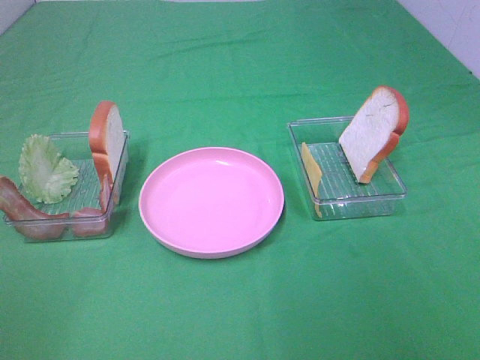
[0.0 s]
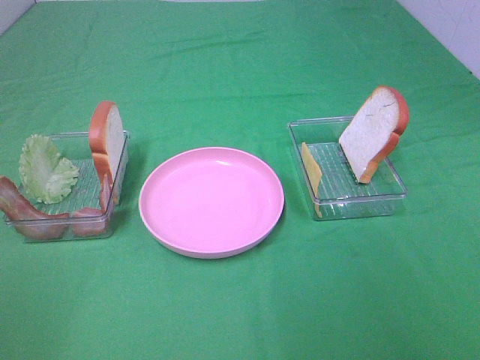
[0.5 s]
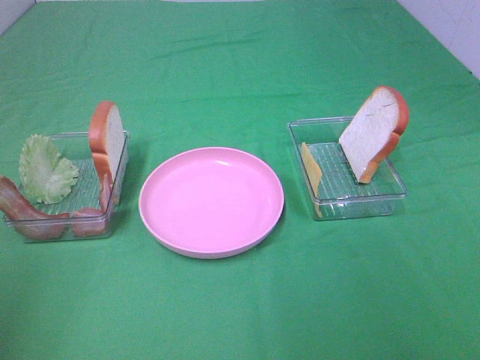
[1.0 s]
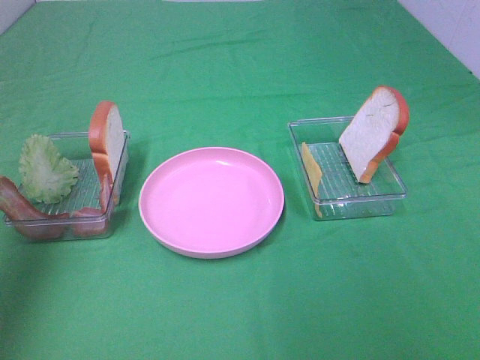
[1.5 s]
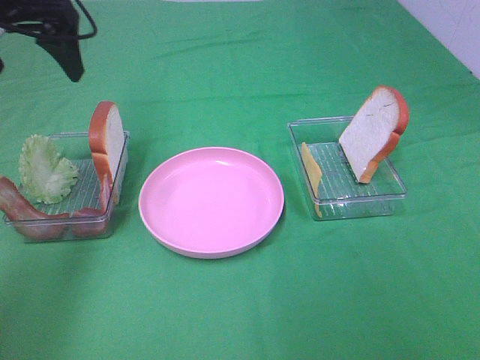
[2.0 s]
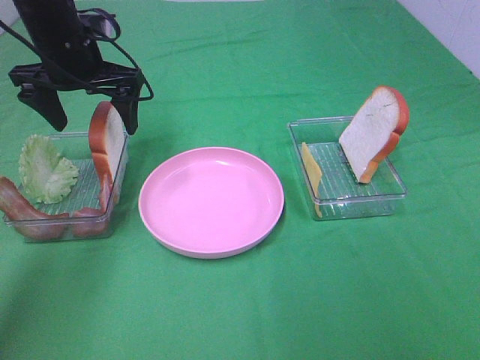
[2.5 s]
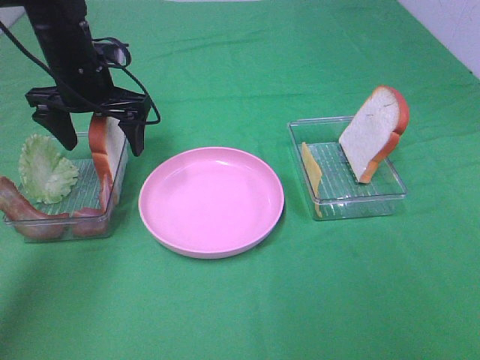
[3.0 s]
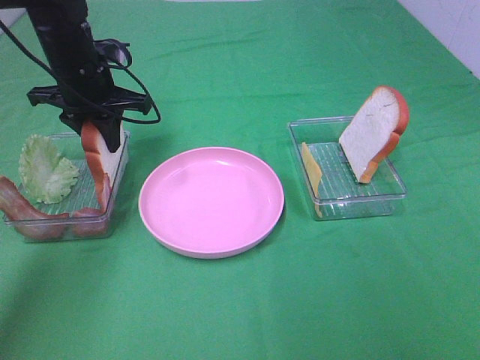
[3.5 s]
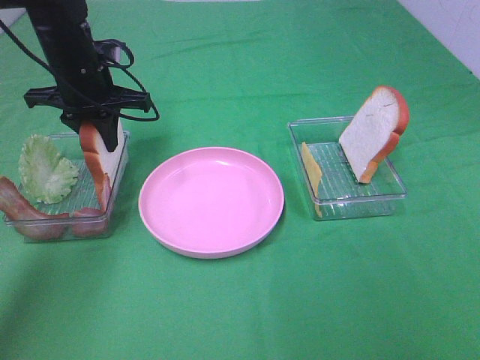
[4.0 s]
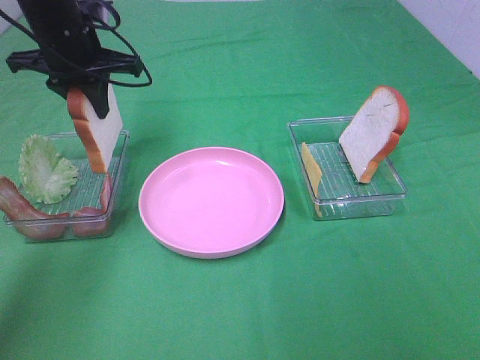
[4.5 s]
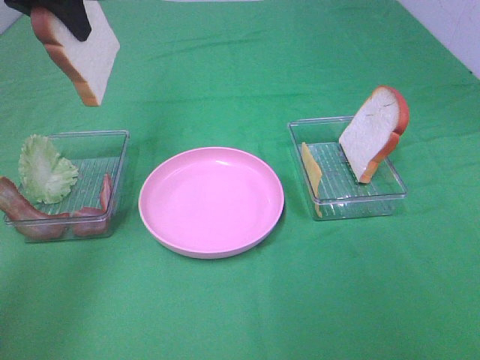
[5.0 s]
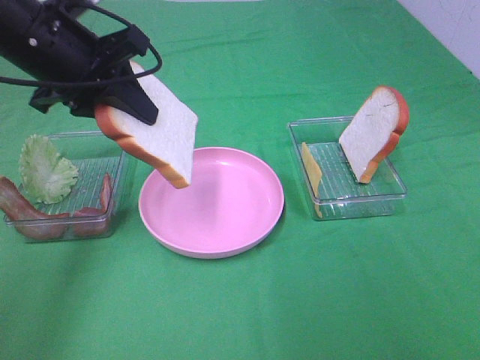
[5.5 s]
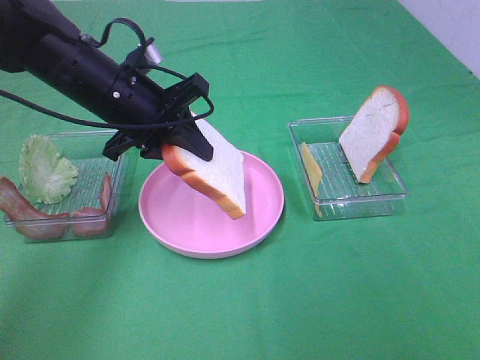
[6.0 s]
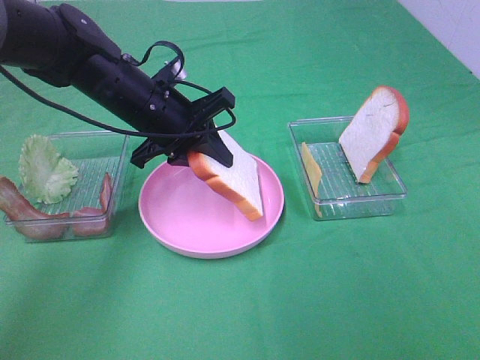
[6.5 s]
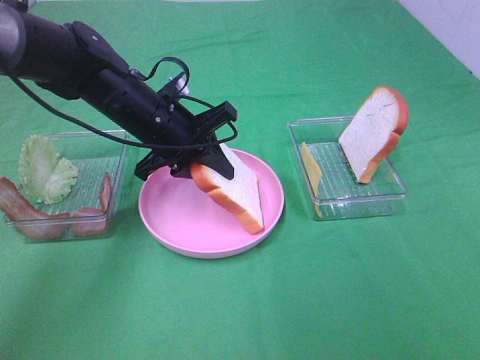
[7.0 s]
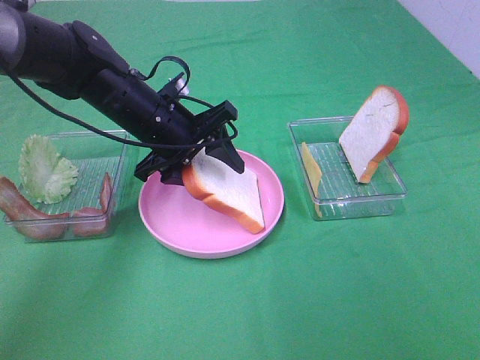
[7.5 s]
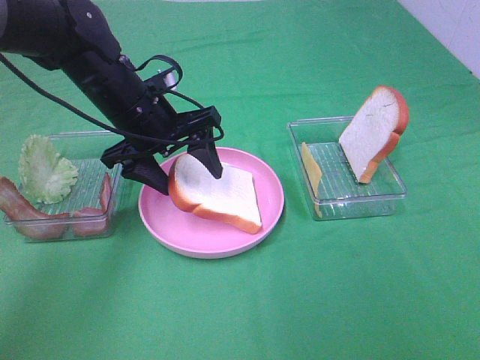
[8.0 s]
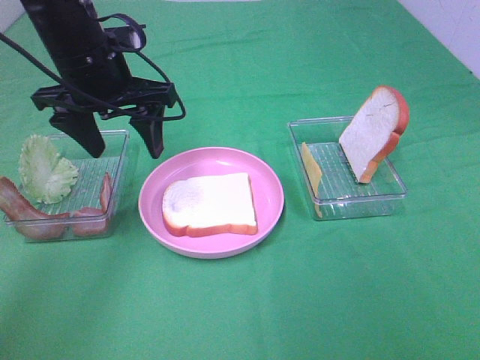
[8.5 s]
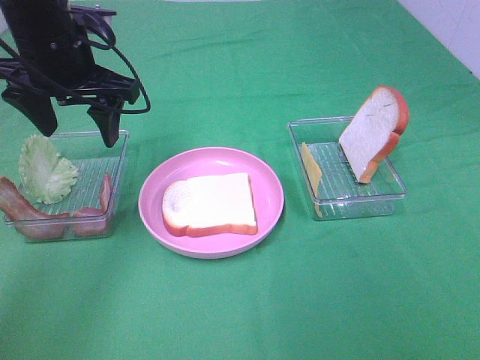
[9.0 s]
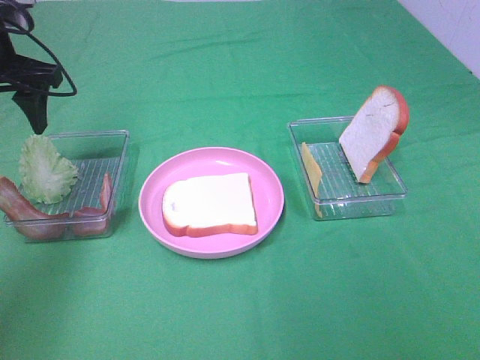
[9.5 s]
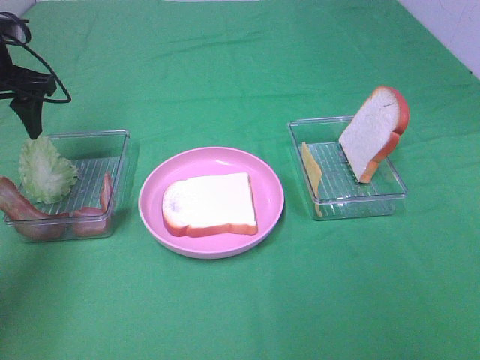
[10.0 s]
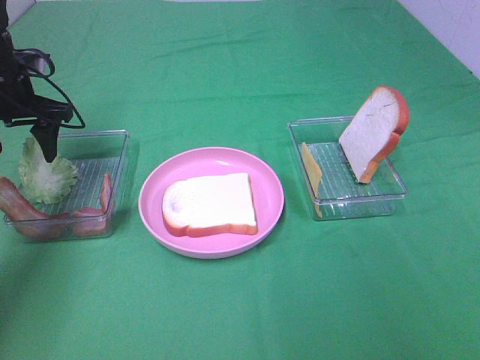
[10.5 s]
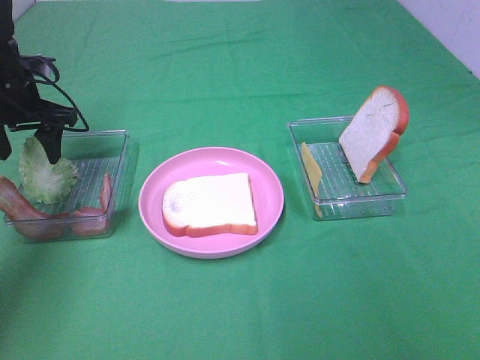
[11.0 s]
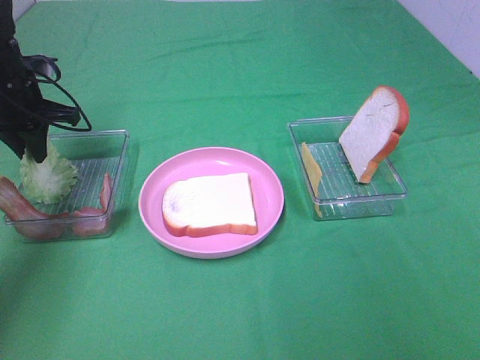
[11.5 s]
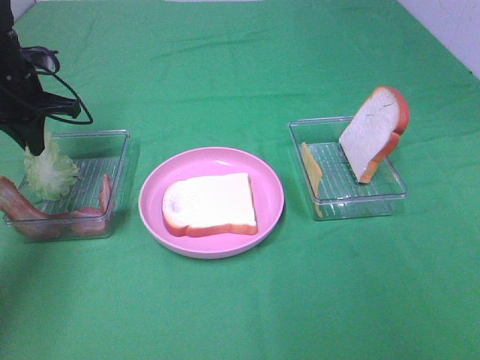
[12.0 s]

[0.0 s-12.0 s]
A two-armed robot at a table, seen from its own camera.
Task of the whole recording: Make sandwiches.
Step, 0.0 to 4.0 s: Left hand:grab the bread slice.
Step, 4.5 to 8.0 s: Left hand:place the bread slice on the plate.
Step, 8.5 to 12.0 s: Left hand:grab the lettuce slice.
0.0 to 2.0 s: The left gripper moves forward, roughly 40 cm.
2.0 to 4.0 s: The left gripper goes approximately 15 cm downward and forward, and closes.
4.0 to 6.0 s: The left gripper heads backward and to the right, covering about 10 cm, and reaches some 15 cm upward, then returns.
6.0 to 8.0 s: The left gripper opens.
8.0 to 10.0 s: The left gripper moves to the left, some 20 cm.
10.0 to 12.0 s: The left gripper changes place by approximately 5 cm, and closes.

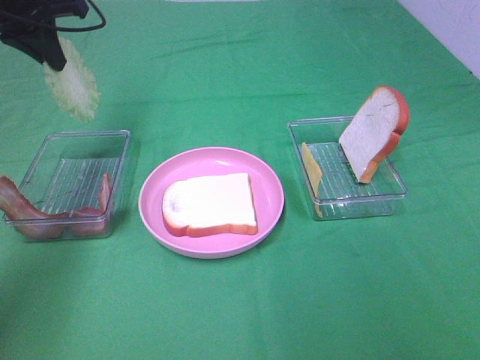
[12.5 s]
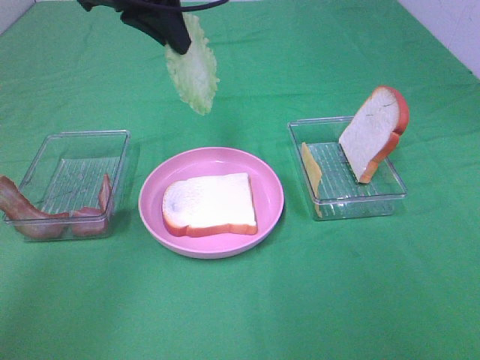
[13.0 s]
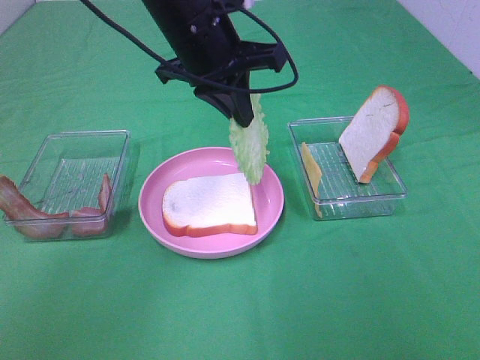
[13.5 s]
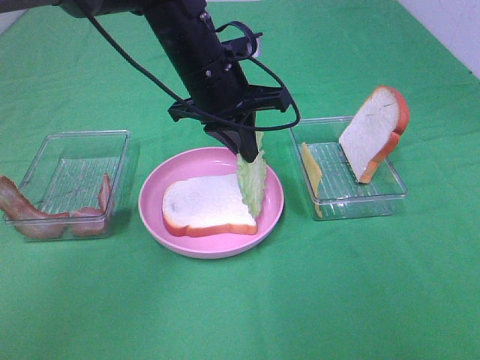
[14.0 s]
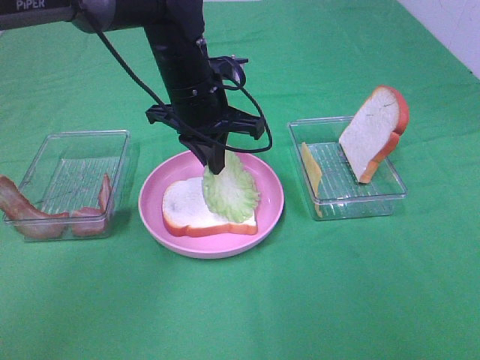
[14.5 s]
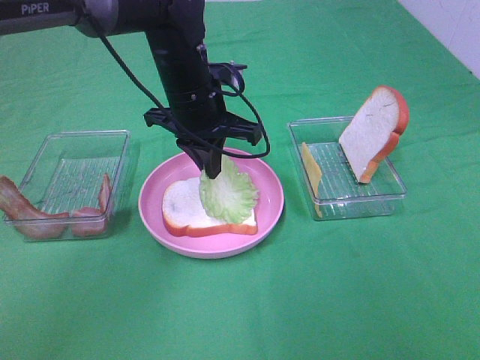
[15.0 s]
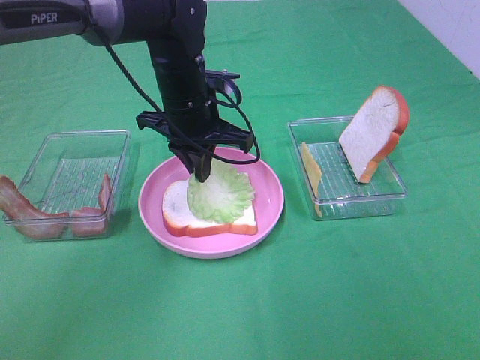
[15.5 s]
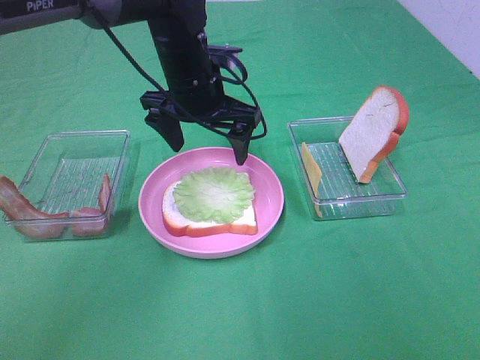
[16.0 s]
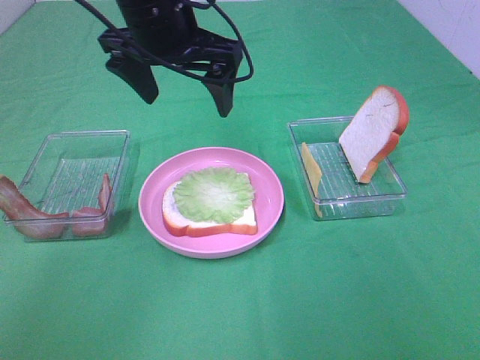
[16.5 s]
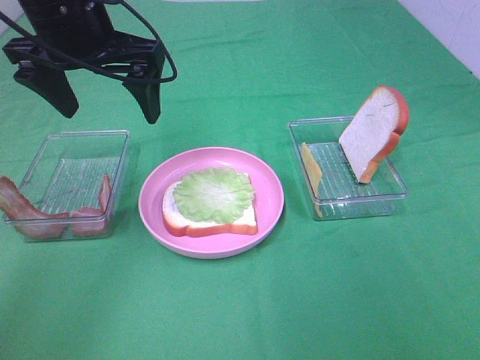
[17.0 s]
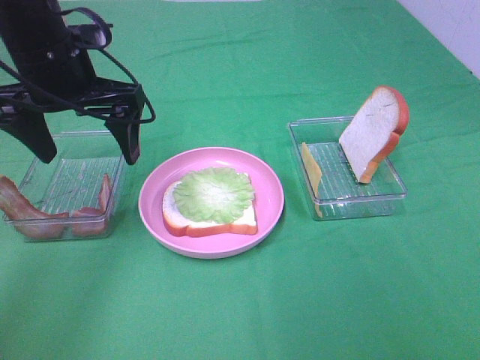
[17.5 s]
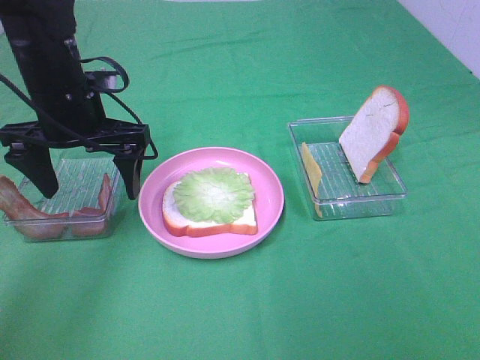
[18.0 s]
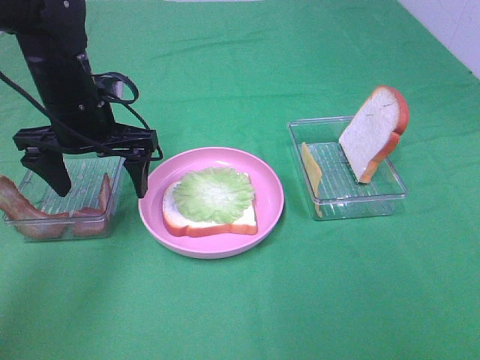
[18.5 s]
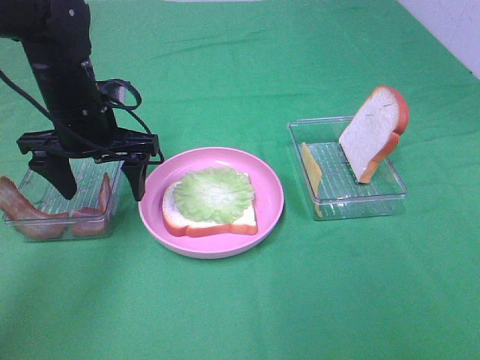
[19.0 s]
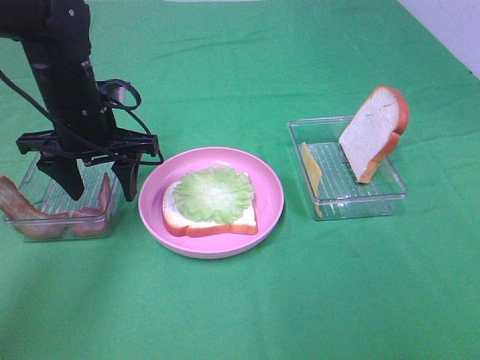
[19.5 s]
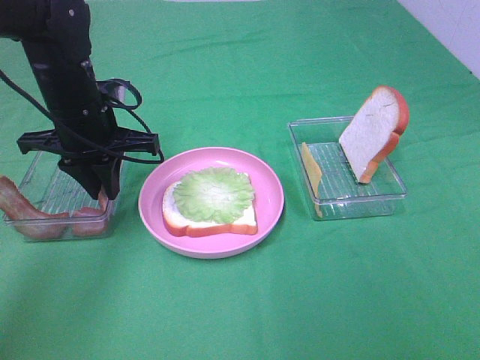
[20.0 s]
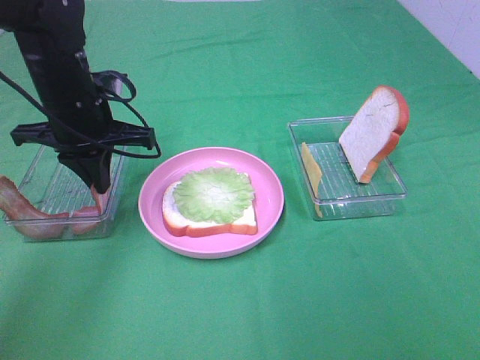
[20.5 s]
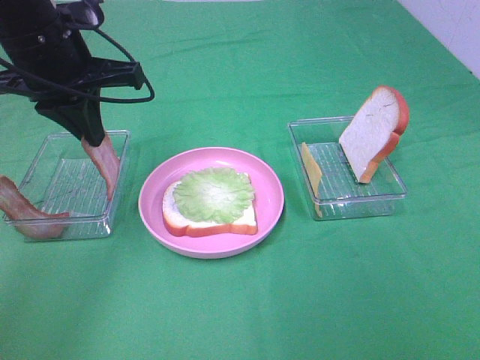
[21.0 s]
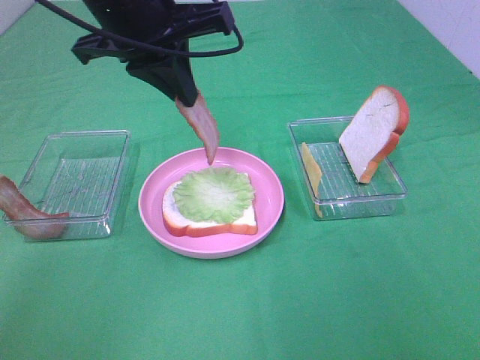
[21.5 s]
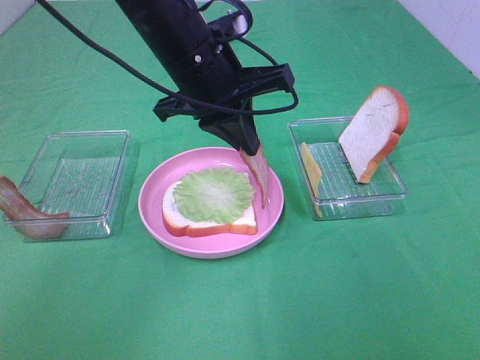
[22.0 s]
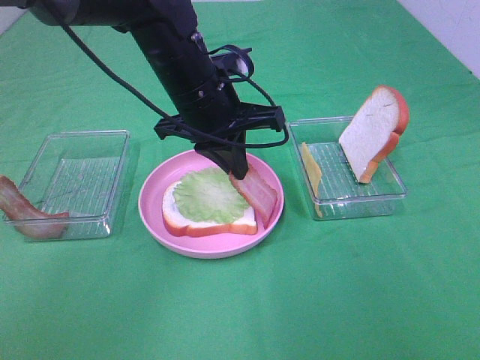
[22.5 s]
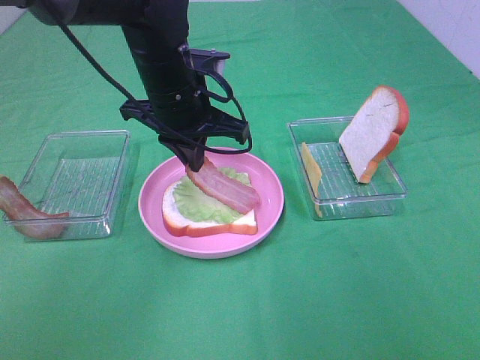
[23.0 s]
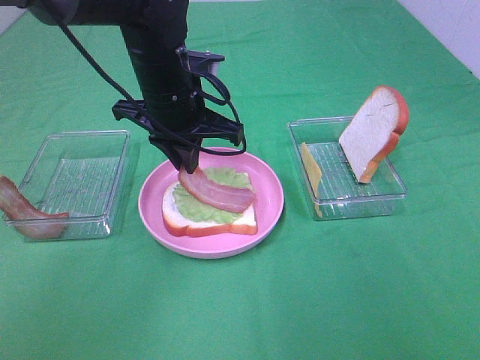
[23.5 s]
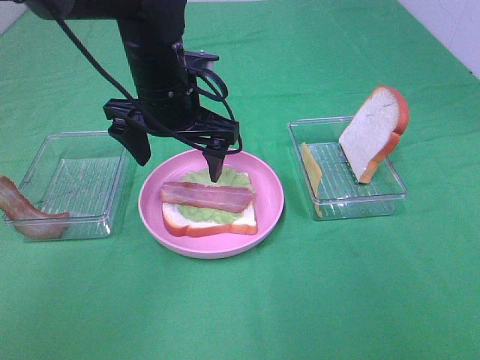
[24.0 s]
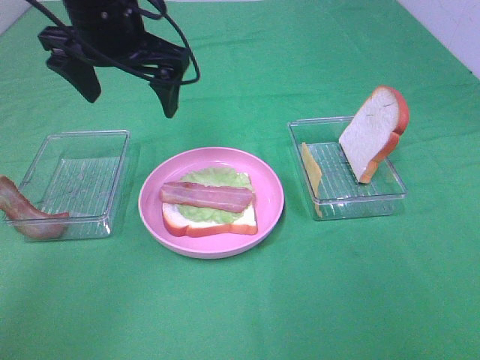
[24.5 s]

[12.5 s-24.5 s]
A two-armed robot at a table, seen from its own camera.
Task of the whole recording: Make sandwiches.
Step, 12.5 to 15.5 s: Left hand:place the lettuce slice on the bread slice.
Step, 16.0 to 20.5 s: Left hand:grab the bacon.
Step, 21.0 to 23.5 s: Left hand:place bacon on lettuce slice.
12.5 to 14.5 s: The left gripper is displaced to the right and downward by some 25 cm.
14.5 to 16.5 s: The left gripper travels upward by roughly 10 cm, and opens its fingers.
16.5 to 18.5 s: The left gripper moves downward and to the left, approximately 15 cm.
18.5 to 20.5 s: The left gripper closes up.
20.5 to 22.5 s: The left gripper is displaced to the right by roughly 15 cm.
22.5 to 24.5 s: The left gripper goes some 10 cm to the left and upward, and opens.

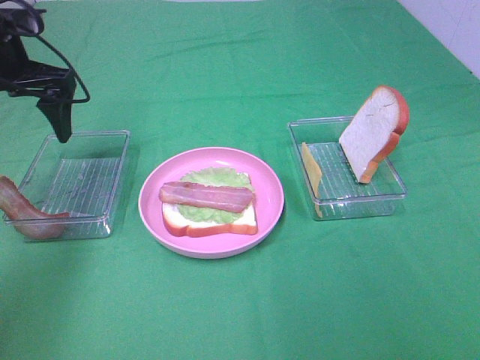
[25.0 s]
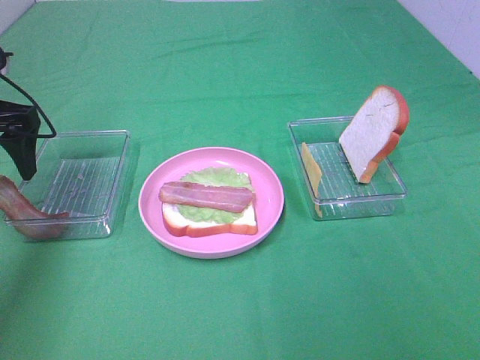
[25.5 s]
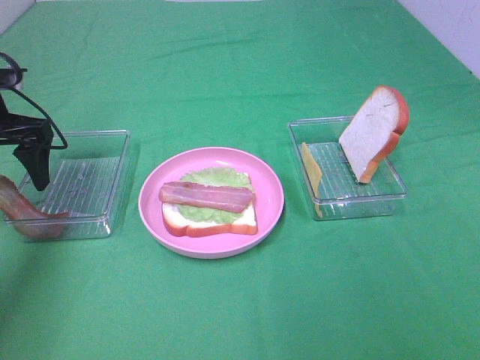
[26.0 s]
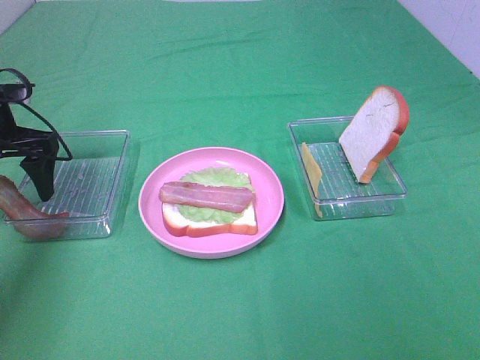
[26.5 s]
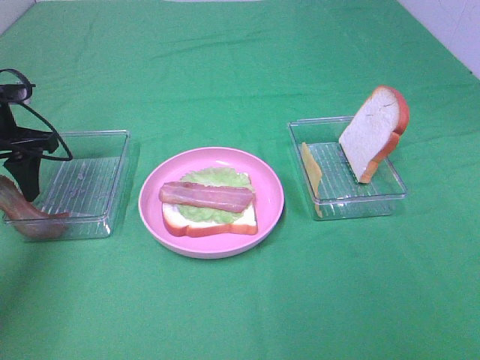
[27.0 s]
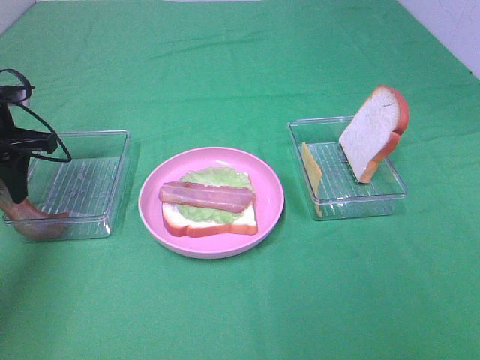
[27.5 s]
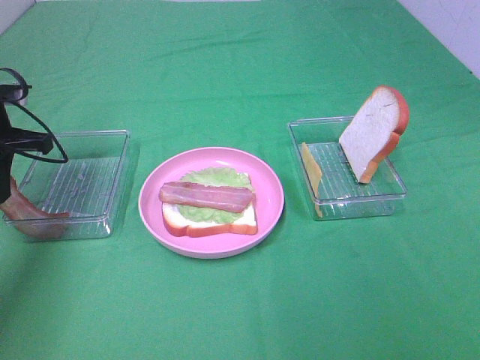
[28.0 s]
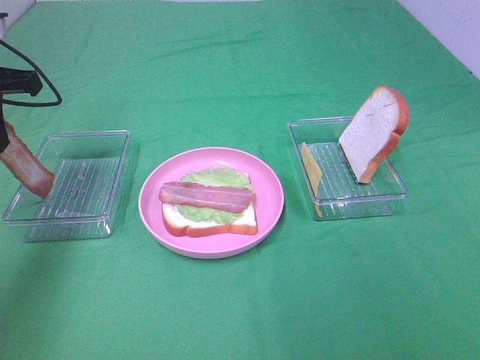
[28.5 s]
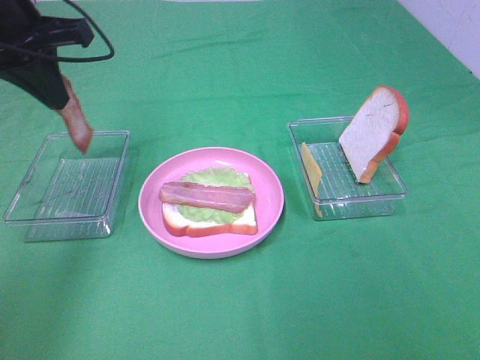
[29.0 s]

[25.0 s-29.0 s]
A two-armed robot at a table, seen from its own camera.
Task of the whole recording: Make sandwiches.
Step, 25.0 to 28.0 s: Left hand:grab the bacon.
25.0 to 27.0 s: The left gripper goes about 10 cm downward, and closes up.
27.0 to 29.0 s: The left gripper is displaced upward and to the right by approximately 15 cm, and closes its fingers.
